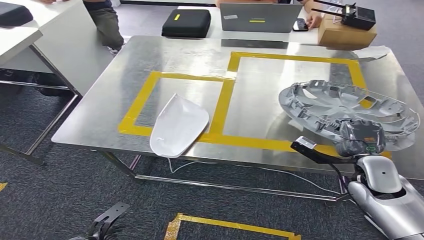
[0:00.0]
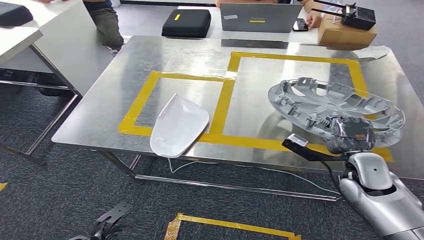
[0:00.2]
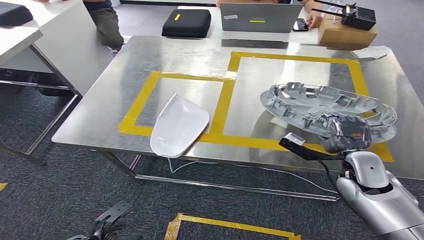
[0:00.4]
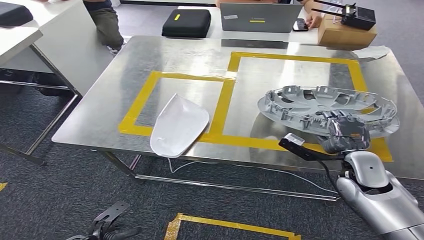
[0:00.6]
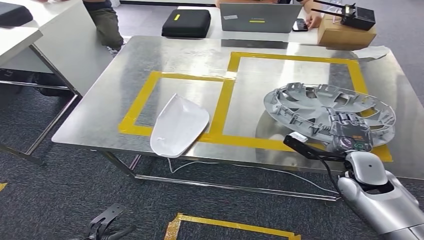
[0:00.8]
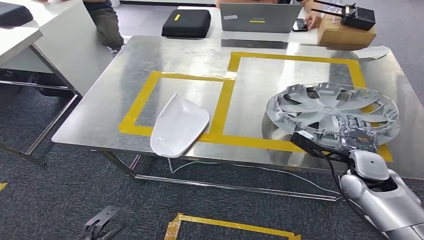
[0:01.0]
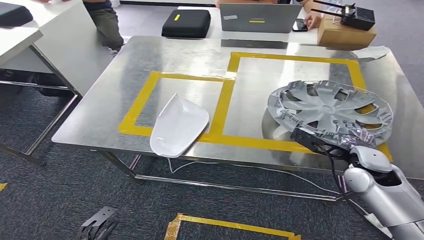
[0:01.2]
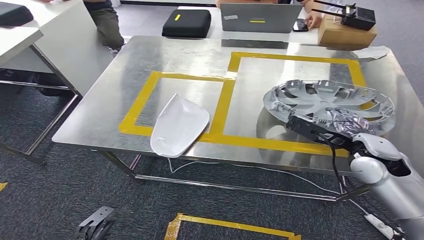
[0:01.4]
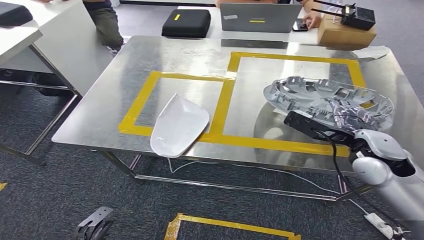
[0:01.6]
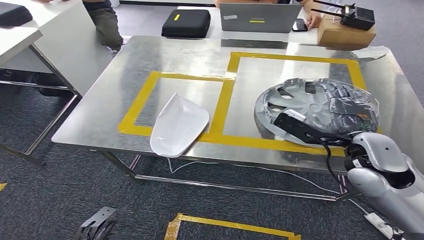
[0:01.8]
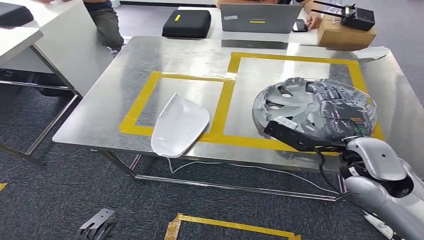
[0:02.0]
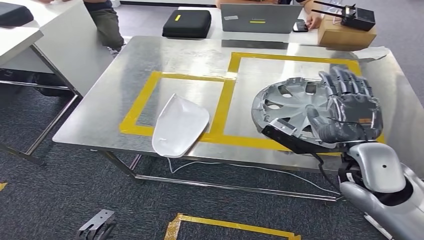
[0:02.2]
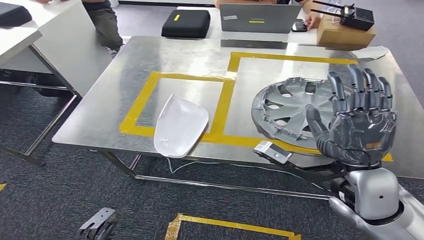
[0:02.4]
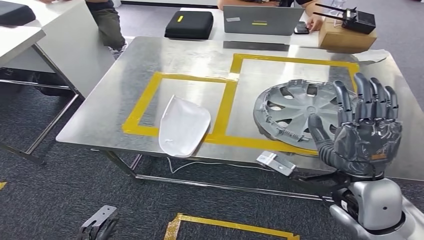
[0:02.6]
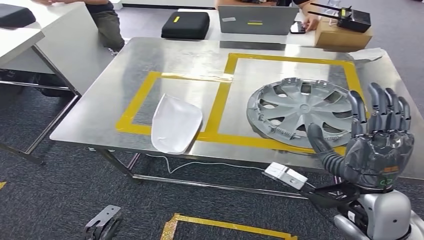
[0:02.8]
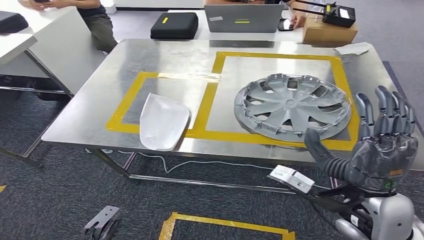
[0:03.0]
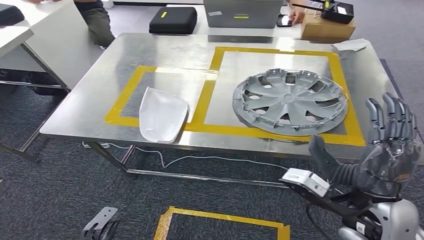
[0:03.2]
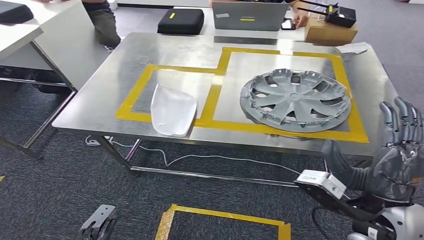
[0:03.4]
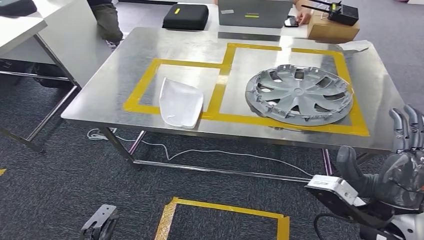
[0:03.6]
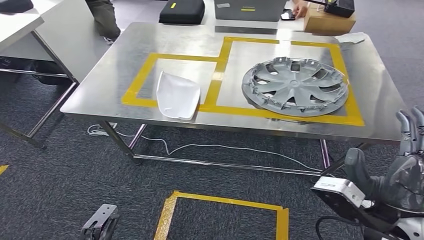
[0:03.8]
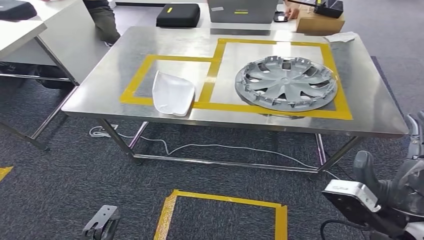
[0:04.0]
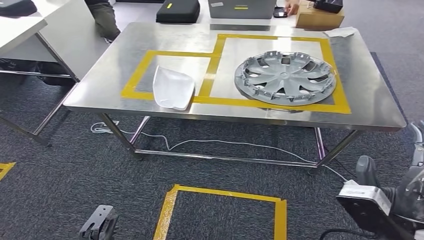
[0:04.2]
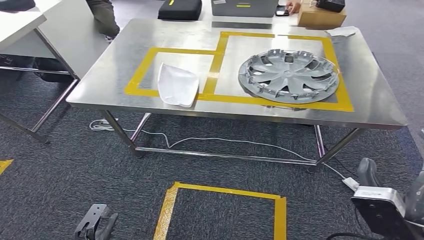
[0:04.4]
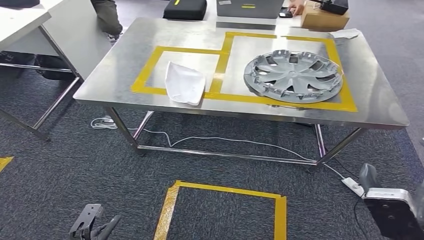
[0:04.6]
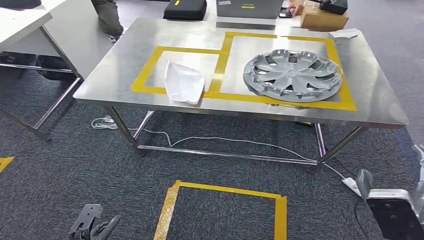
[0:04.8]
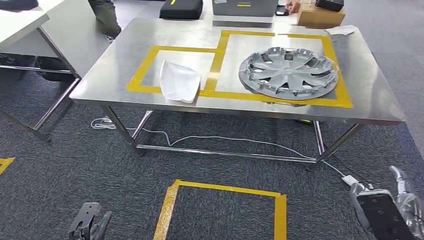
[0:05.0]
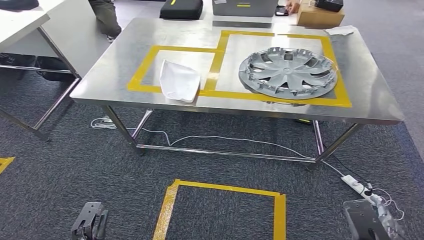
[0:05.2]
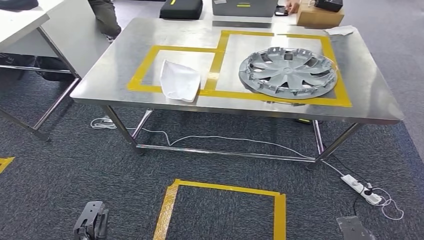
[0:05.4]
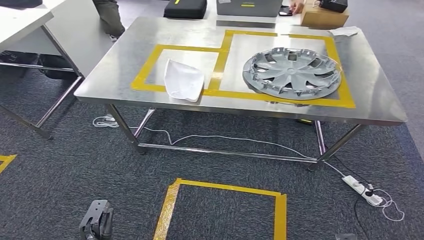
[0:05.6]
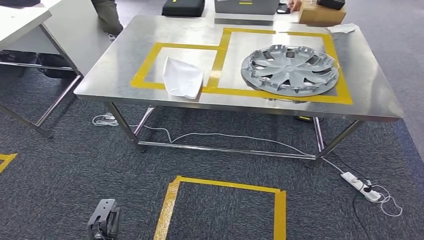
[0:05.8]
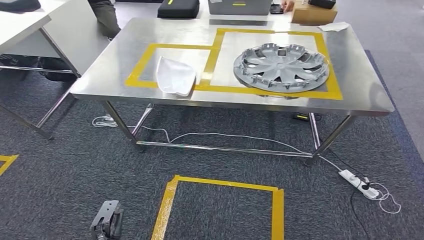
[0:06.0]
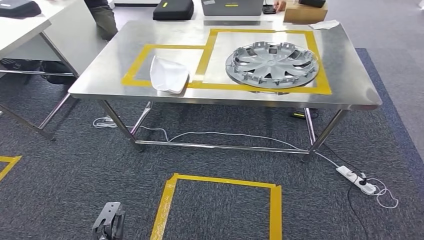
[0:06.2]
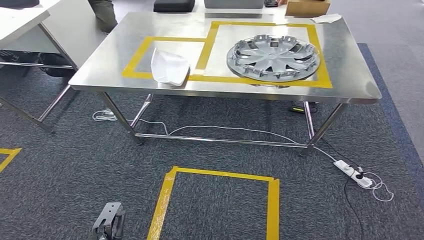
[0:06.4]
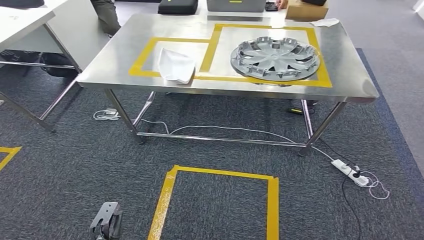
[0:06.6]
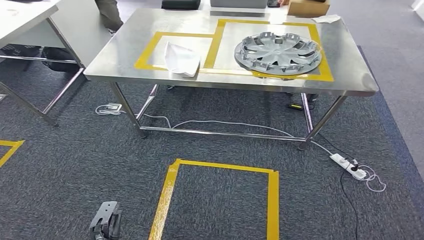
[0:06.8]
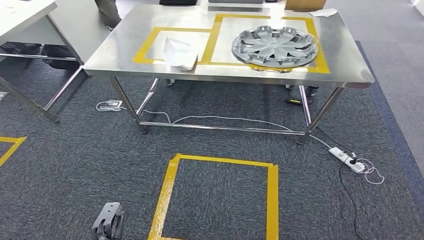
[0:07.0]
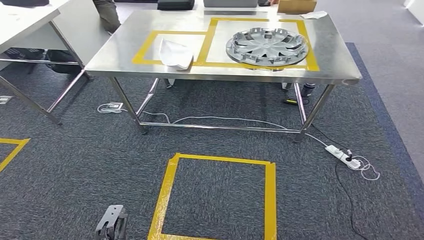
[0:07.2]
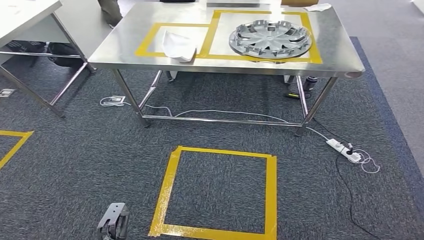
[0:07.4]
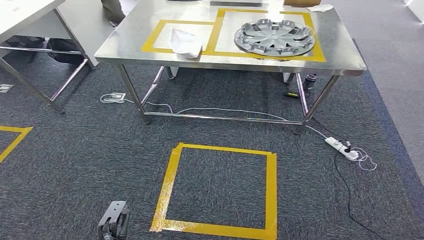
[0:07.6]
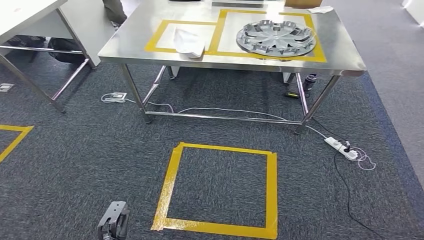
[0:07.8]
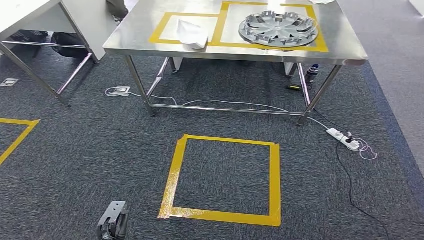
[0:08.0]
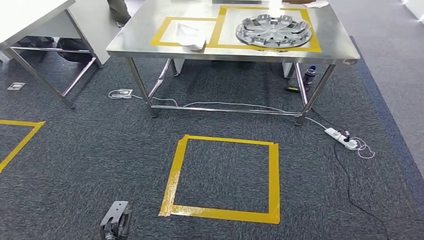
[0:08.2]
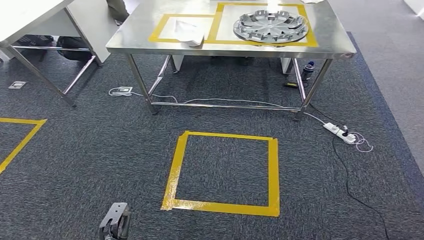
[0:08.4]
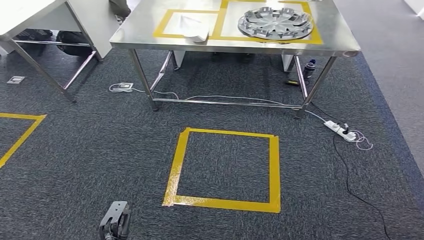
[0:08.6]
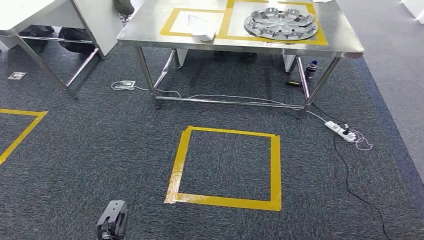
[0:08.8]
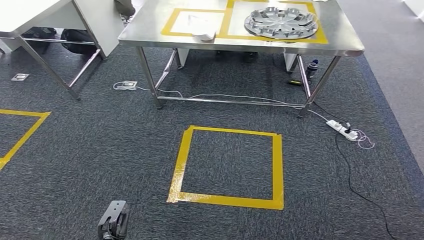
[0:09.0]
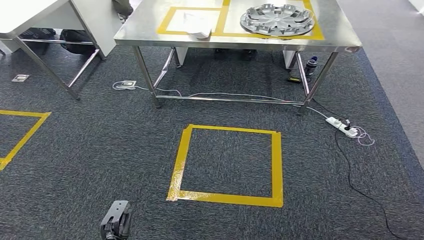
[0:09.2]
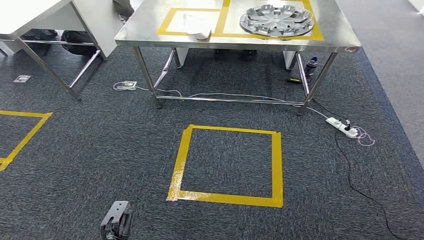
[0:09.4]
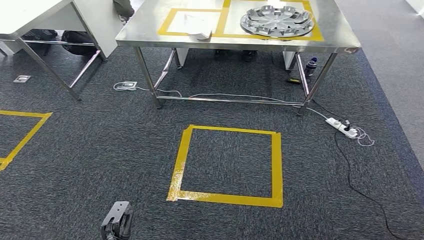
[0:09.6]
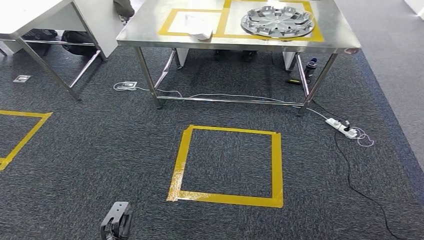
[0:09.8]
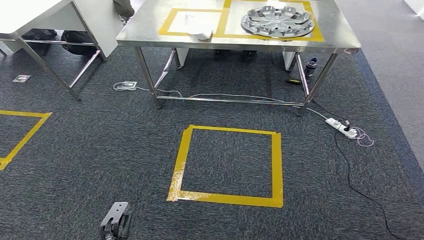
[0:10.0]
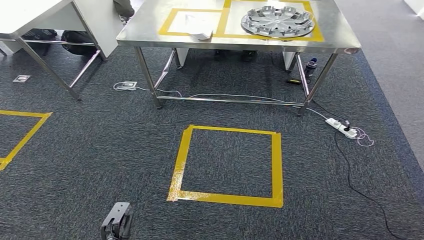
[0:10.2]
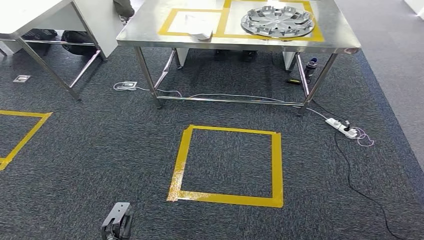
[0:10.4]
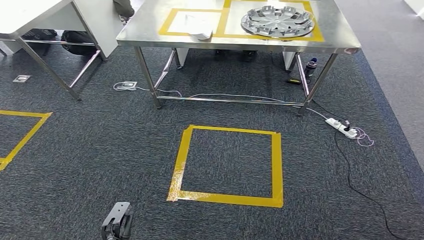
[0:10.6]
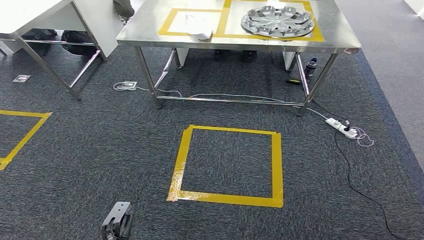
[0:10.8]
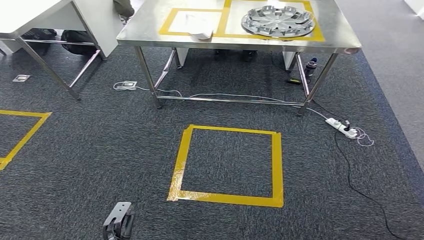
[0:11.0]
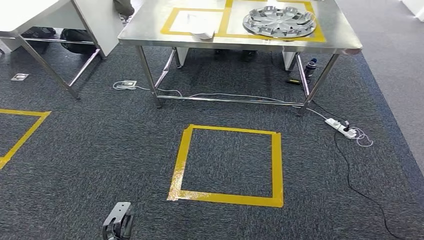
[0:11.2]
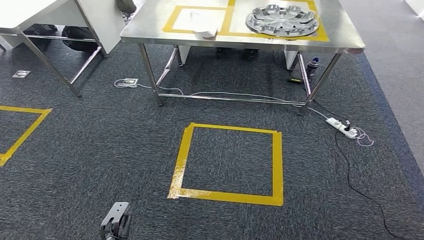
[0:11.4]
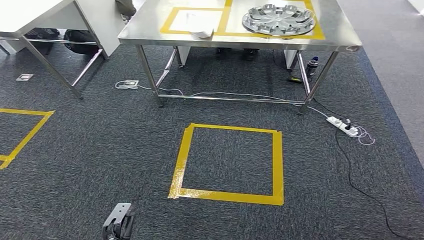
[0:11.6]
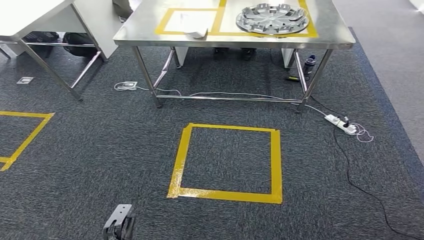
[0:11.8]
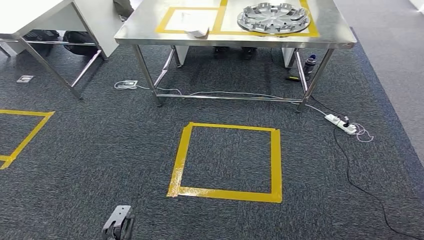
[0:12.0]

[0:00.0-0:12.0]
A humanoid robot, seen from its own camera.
Step, 0:00.0 to 0:03.0: Insert the small component into the corresponding slot on the workbench.
0:00.0 to 0:01.6: The right hand is displaced upward by some 10 cm.
0:09.0 to 0:12.0: Both hands stay put.

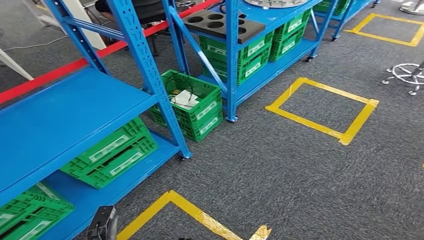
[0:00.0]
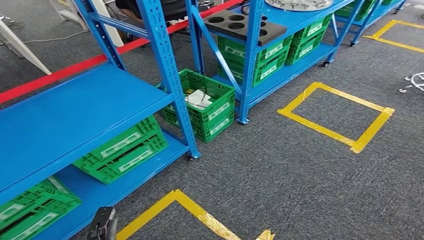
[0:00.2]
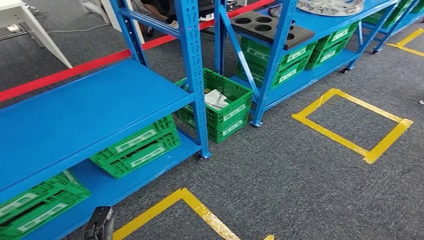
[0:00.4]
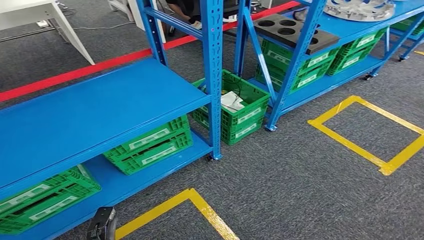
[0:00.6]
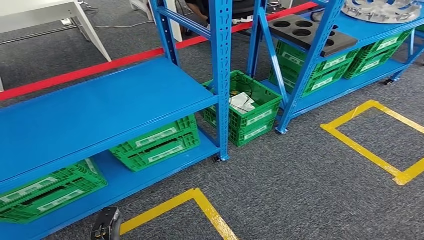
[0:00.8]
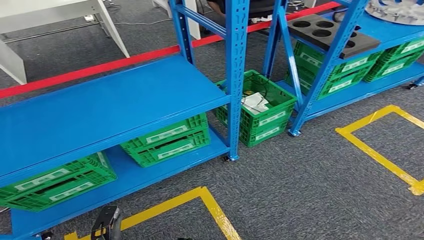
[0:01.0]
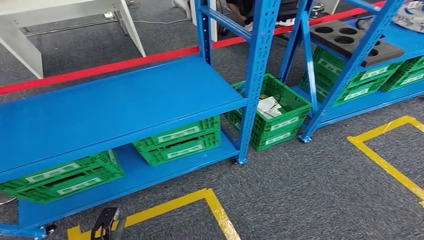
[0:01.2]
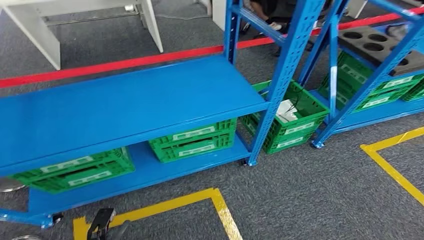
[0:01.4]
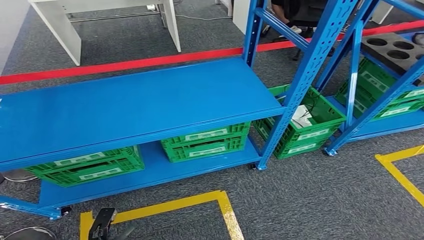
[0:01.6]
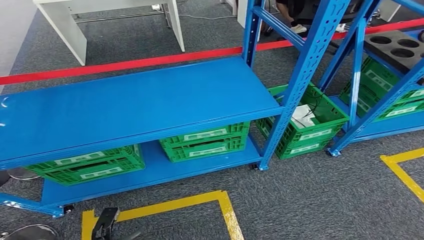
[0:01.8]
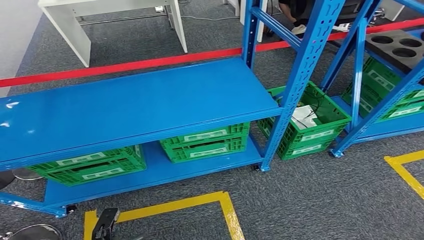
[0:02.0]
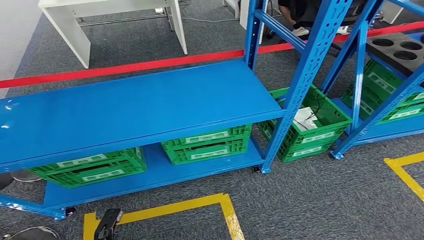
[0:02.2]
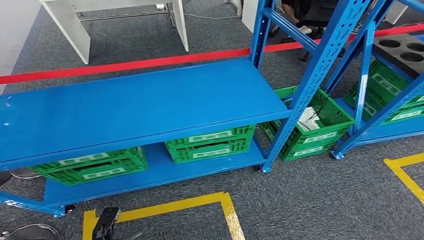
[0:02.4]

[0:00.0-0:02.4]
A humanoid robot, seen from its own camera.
Step, 0:00.0 to 0:02.4: Move to the initial position at the workbench.

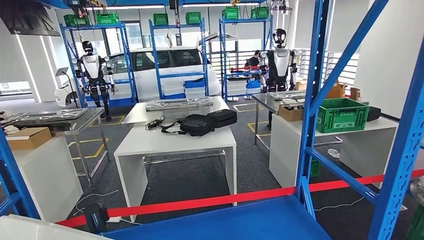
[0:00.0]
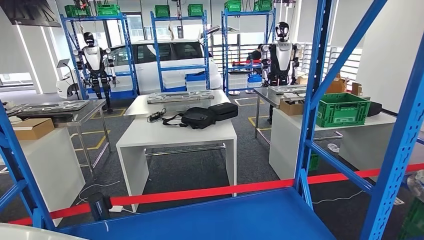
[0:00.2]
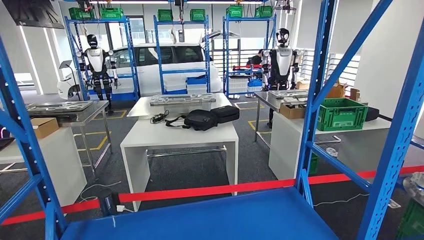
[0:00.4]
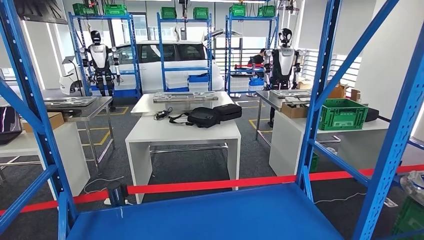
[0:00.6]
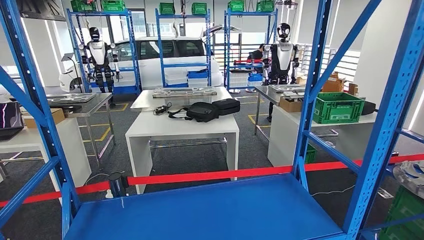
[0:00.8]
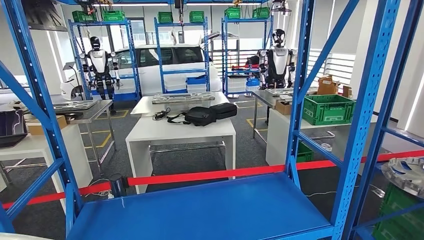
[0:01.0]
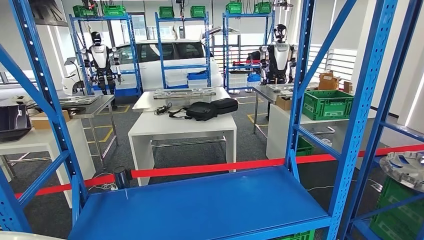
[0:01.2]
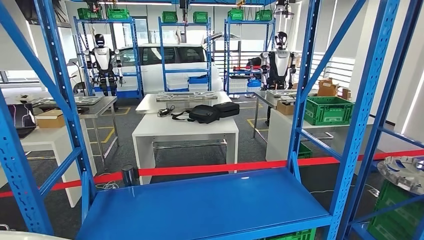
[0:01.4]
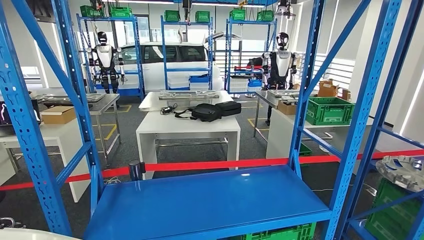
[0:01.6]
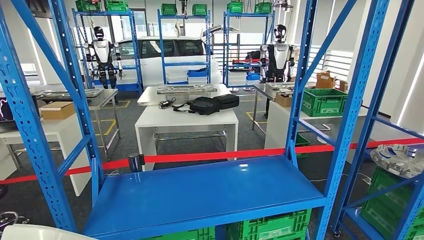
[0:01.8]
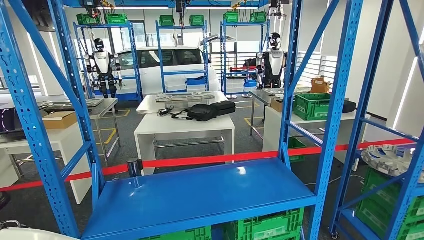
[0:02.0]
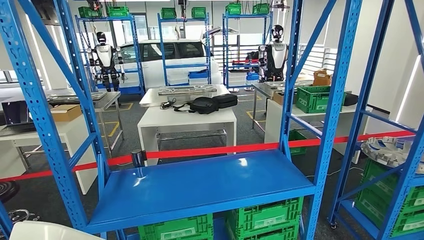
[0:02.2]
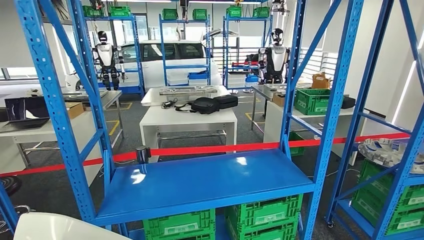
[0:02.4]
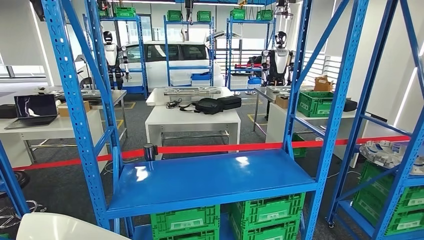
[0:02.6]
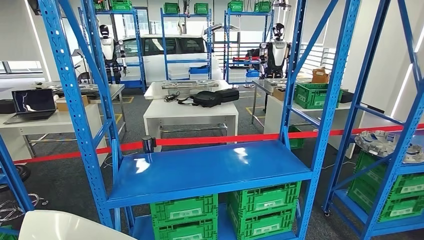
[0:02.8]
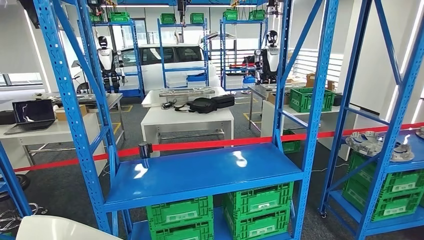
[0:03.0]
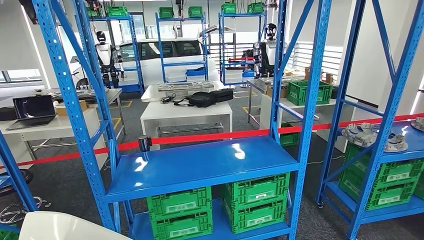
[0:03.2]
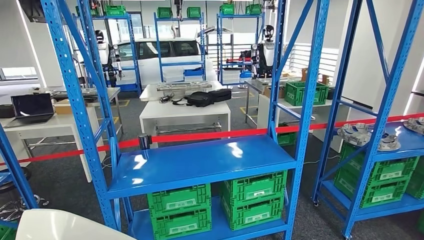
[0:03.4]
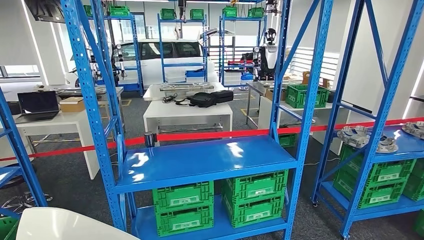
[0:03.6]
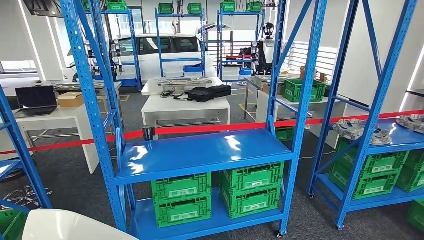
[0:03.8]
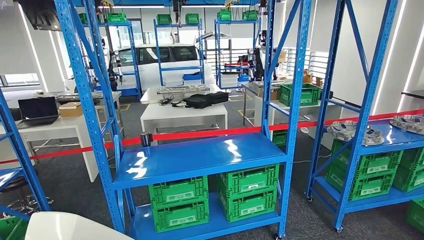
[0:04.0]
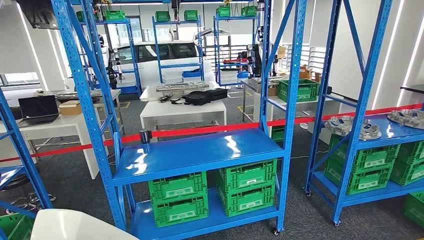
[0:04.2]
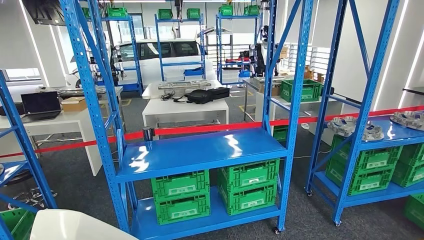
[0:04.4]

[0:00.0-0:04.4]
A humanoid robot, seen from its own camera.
Step, 0:00.0 to 0:02.4: Pick up the small component from the shelf.
